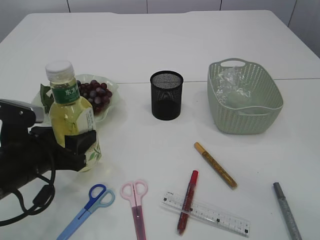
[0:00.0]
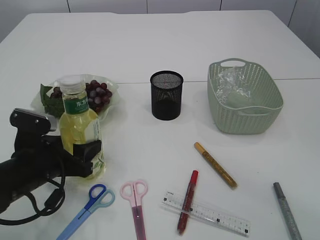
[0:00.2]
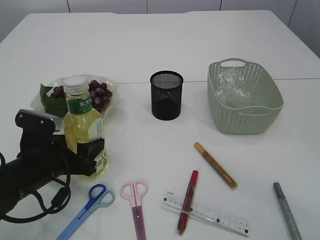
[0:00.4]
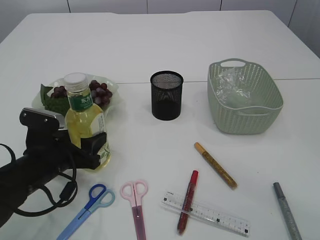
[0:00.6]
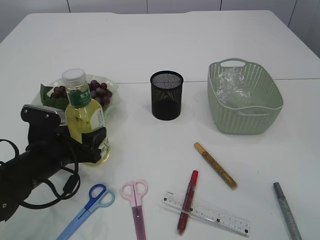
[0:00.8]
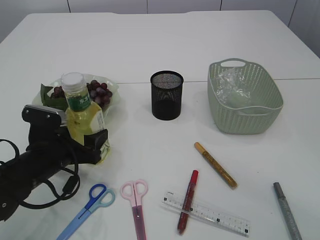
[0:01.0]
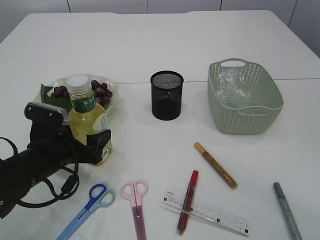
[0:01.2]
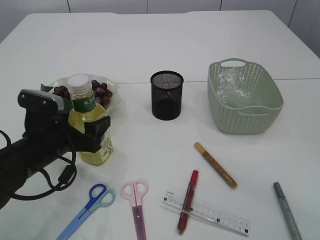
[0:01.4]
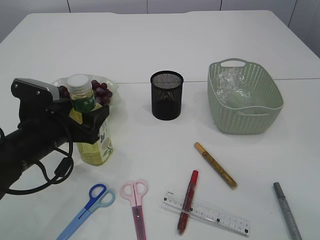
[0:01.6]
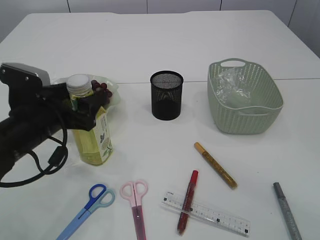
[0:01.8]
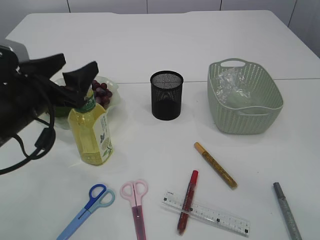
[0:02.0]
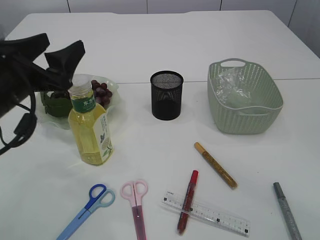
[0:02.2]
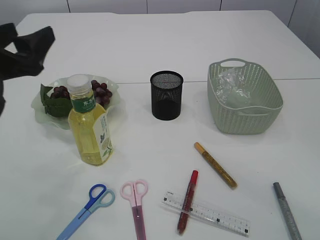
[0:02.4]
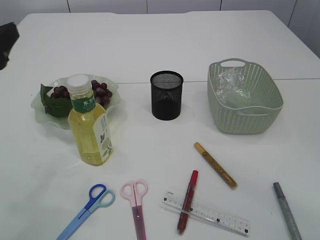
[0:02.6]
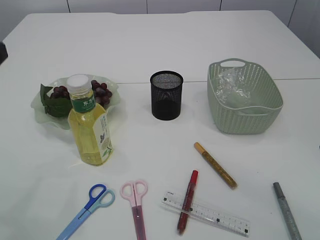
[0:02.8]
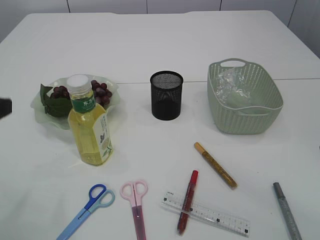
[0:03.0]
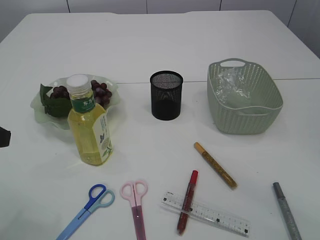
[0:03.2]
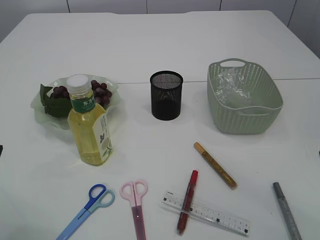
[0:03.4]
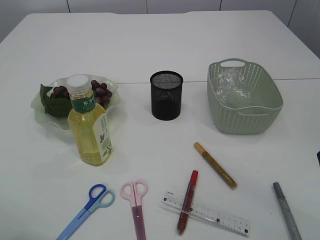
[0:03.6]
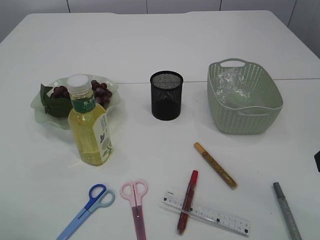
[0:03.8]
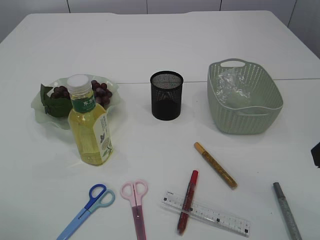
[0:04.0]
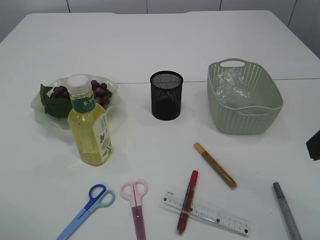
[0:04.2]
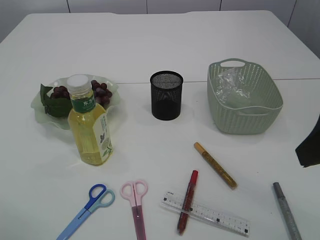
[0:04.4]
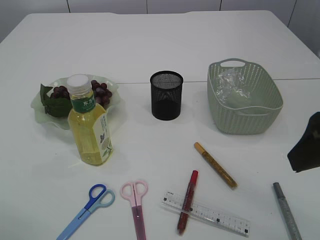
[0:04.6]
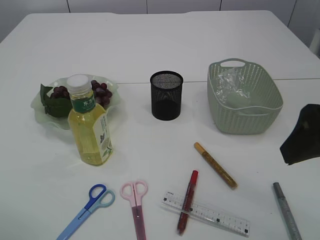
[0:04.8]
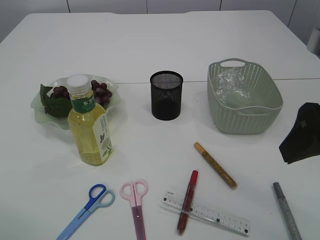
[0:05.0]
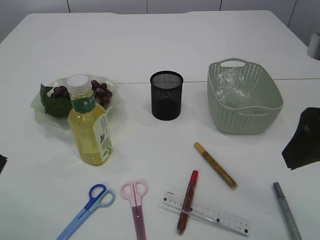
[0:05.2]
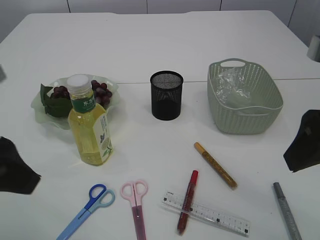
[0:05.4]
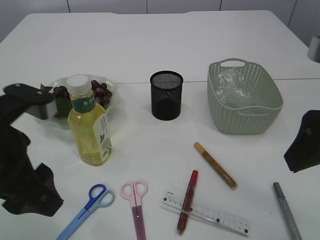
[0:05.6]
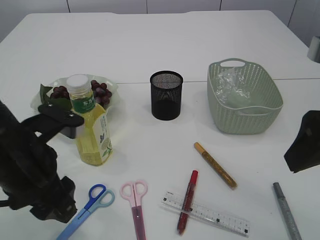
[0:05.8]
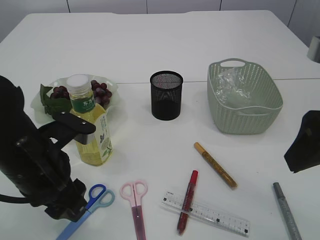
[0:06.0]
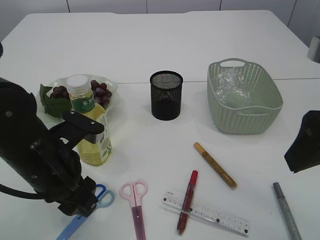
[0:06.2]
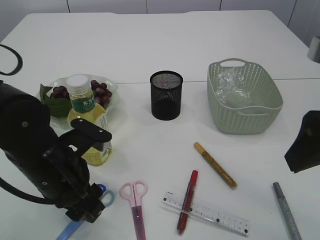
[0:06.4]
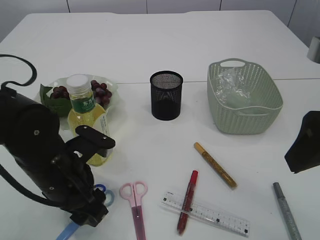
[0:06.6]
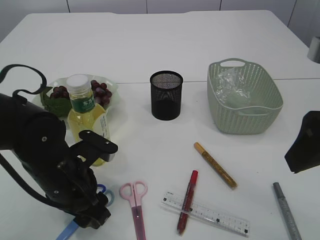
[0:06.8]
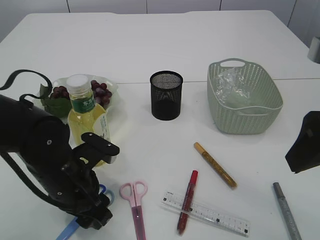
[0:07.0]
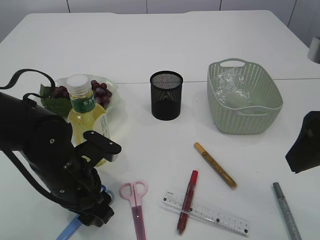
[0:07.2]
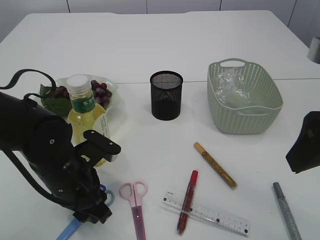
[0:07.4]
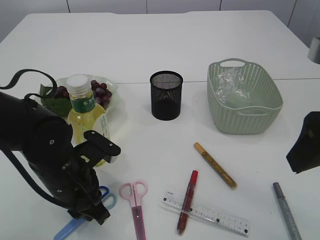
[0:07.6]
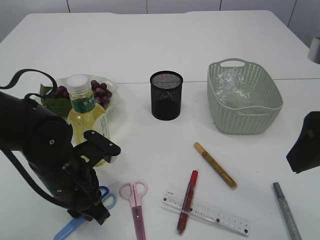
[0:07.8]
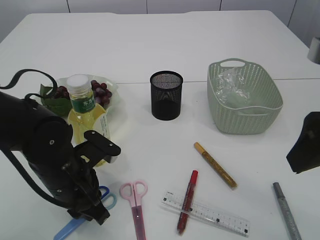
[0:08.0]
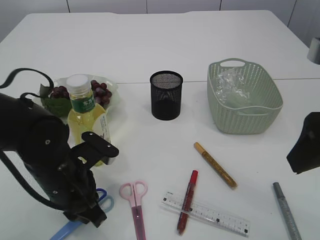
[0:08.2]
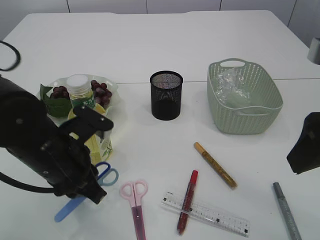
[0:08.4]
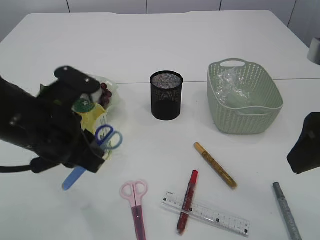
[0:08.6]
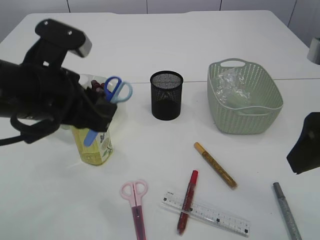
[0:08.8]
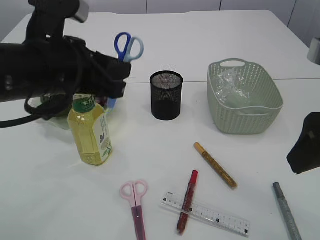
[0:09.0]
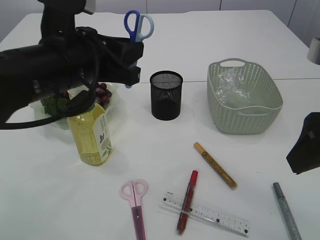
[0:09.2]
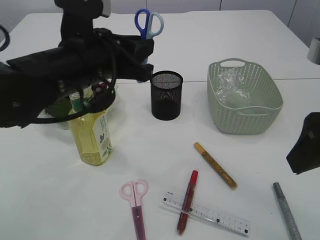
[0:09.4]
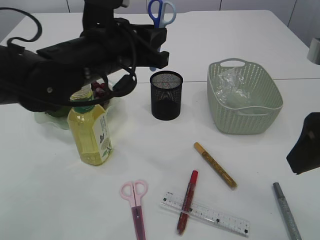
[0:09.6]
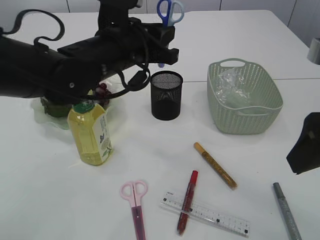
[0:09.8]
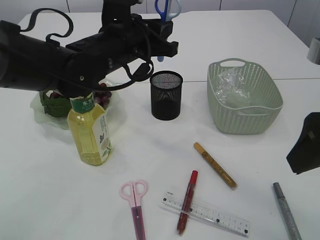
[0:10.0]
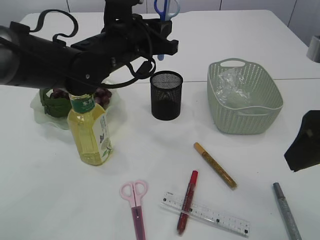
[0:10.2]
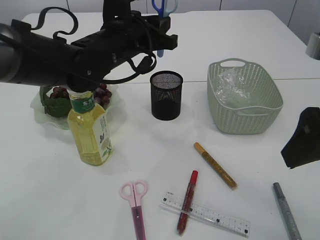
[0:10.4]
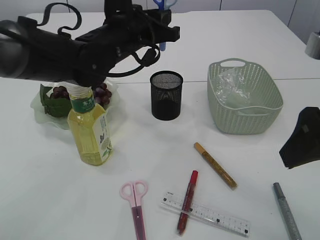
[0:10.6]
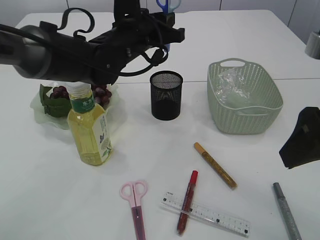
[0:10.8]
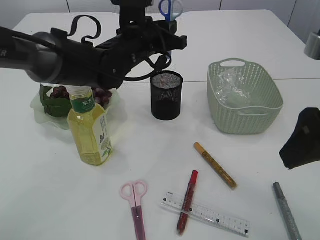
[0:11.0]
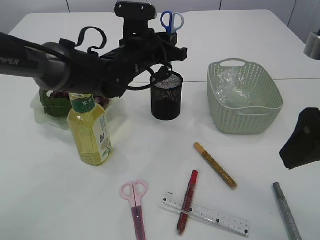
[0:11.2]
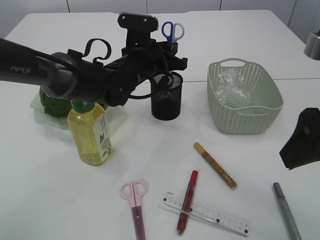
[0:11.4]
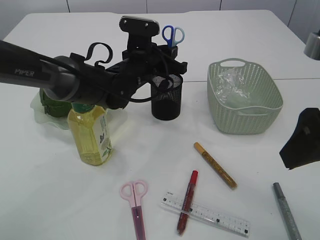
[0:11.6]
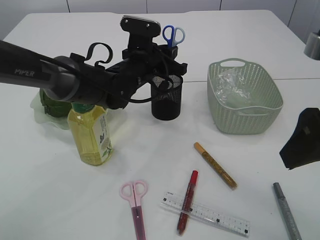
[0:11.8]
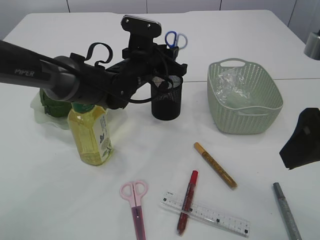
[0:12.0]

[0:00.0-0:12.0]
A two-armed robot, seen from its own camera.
Step, 0:00.0 to 0:02.2: Place the bottle.
Step, 0:02.4 to 0:08.4: pick up the blue scissors.
0:00.0 to 0:01.6: The left gripper opens.
0:01.6 to 0:03.0: The left gripper shifts some 15 cm upward, to the left and backward.
0:04.4 to 0:06.0: The left gripper travels downward and to the right by roughly 15 cm.
0:06.0 to 0:07.6: The left gripper heads downward, covering approximately 5 cm, and closes up.
0:07.6 to 0:09.0: The left gripper shifts approximately 15 cm upward.
0:09.0 to 0:10.4: The left gripper goes some 15 cm forward and to the right.
0:10.4 to 0:12.0: The left gripper heads downward, covering about 5 cm.

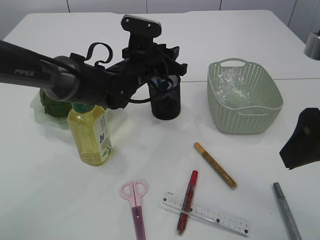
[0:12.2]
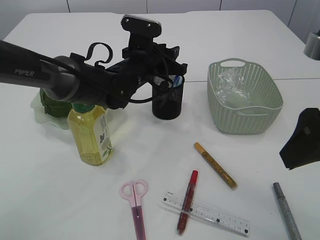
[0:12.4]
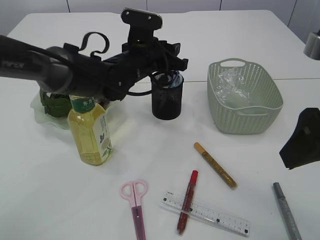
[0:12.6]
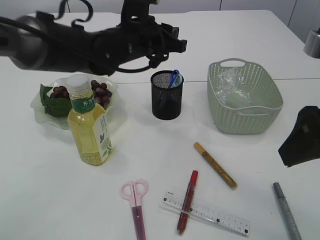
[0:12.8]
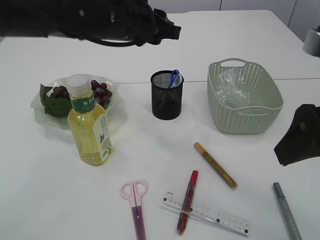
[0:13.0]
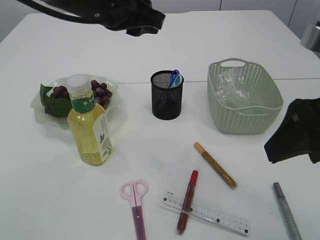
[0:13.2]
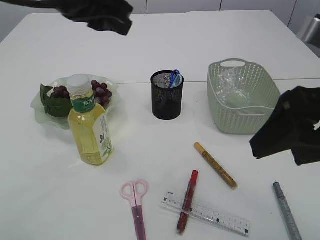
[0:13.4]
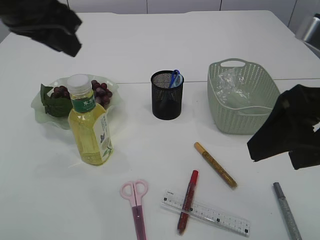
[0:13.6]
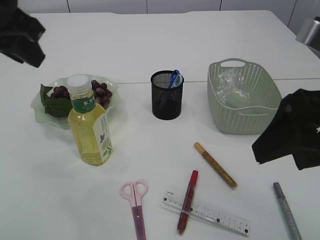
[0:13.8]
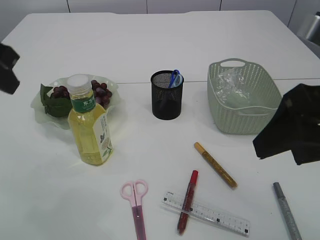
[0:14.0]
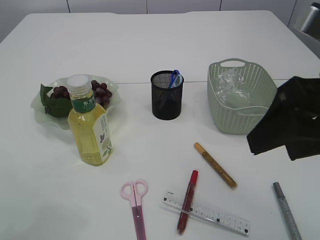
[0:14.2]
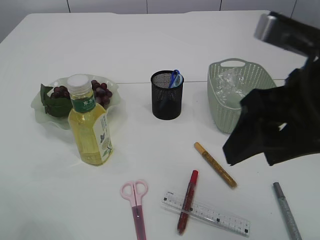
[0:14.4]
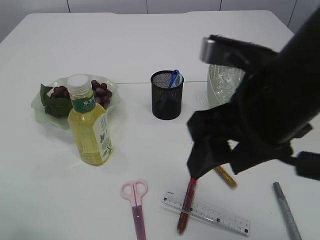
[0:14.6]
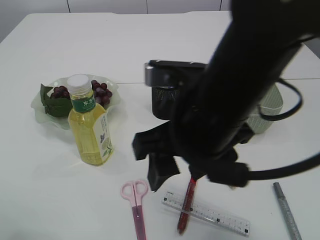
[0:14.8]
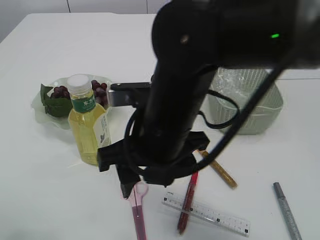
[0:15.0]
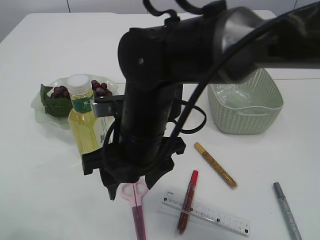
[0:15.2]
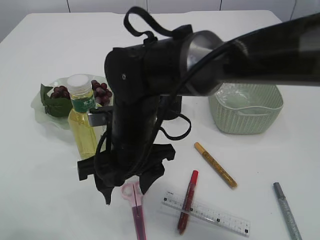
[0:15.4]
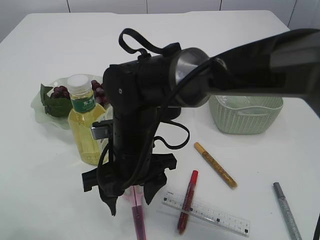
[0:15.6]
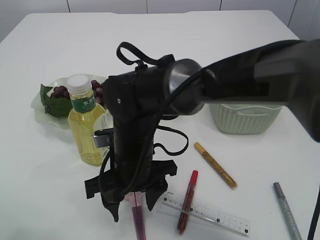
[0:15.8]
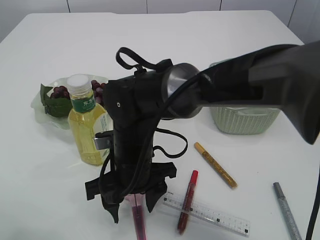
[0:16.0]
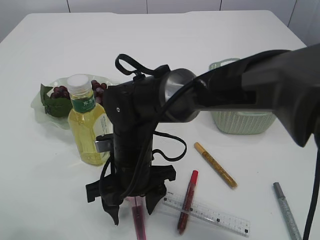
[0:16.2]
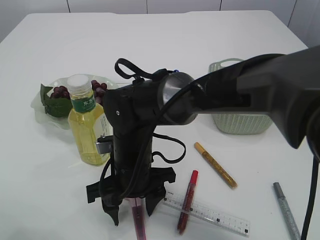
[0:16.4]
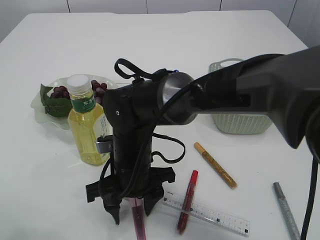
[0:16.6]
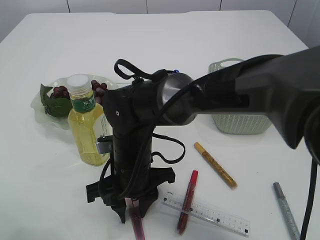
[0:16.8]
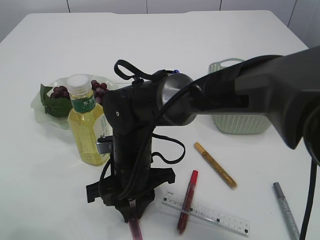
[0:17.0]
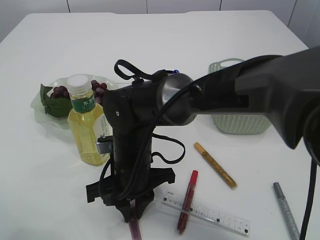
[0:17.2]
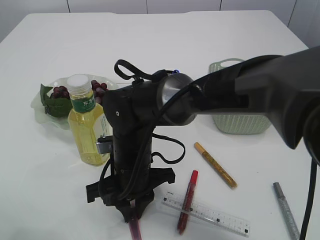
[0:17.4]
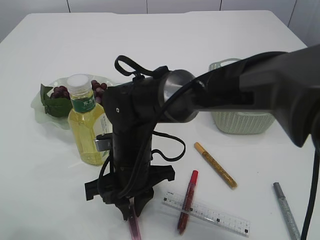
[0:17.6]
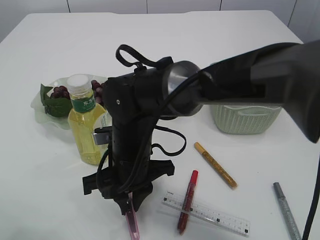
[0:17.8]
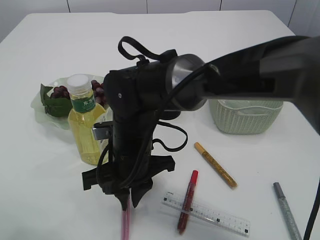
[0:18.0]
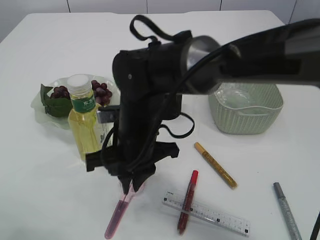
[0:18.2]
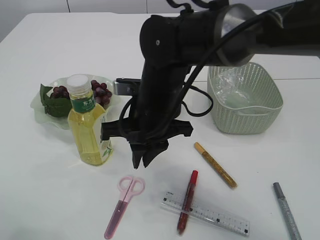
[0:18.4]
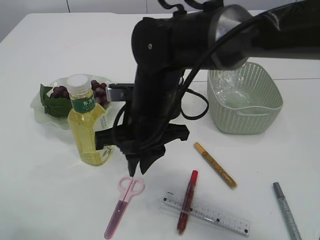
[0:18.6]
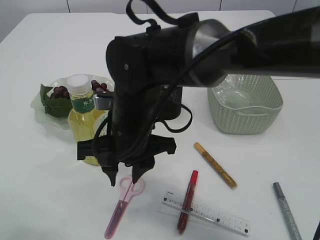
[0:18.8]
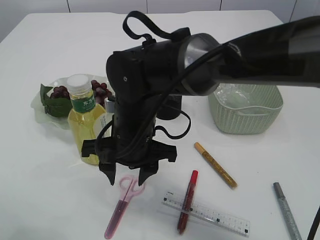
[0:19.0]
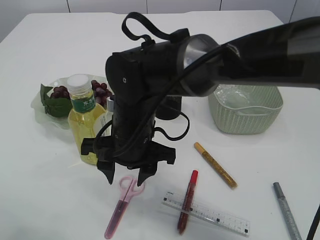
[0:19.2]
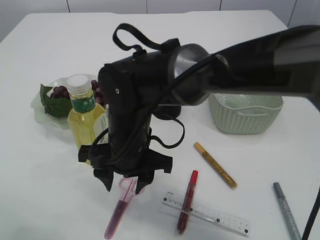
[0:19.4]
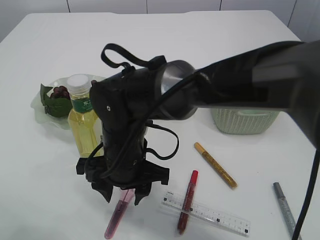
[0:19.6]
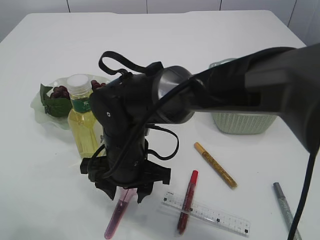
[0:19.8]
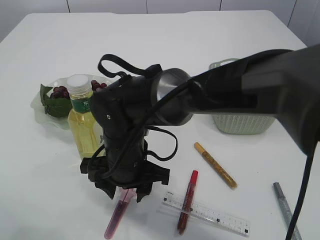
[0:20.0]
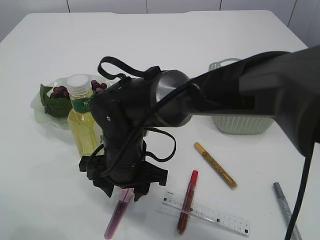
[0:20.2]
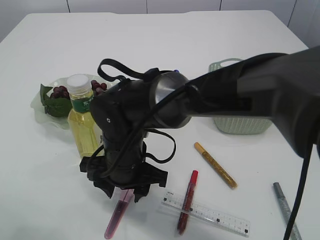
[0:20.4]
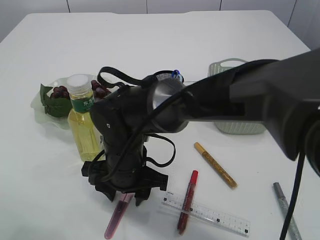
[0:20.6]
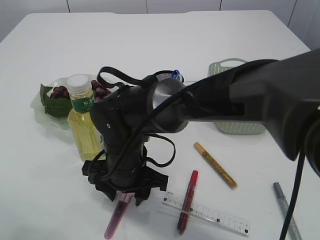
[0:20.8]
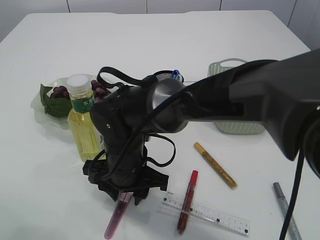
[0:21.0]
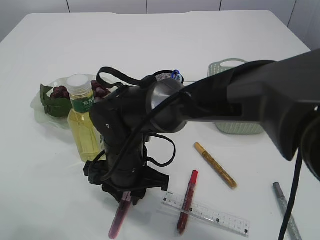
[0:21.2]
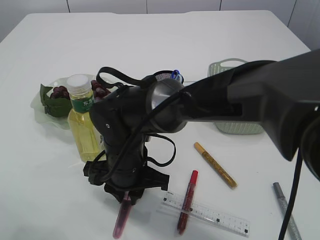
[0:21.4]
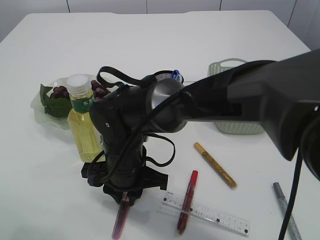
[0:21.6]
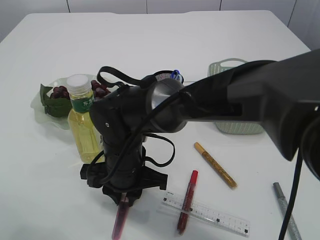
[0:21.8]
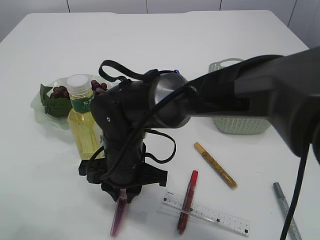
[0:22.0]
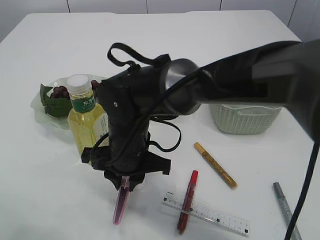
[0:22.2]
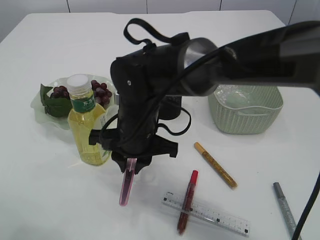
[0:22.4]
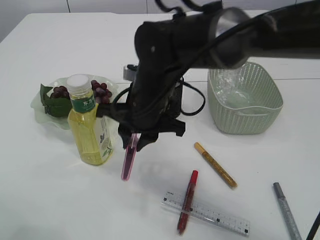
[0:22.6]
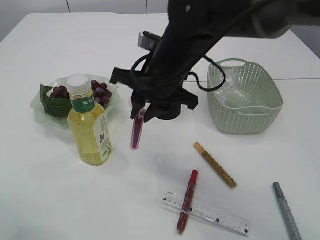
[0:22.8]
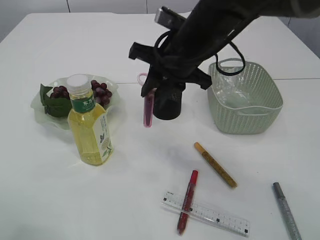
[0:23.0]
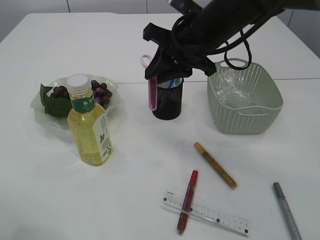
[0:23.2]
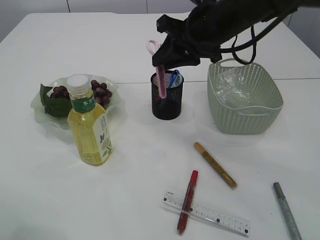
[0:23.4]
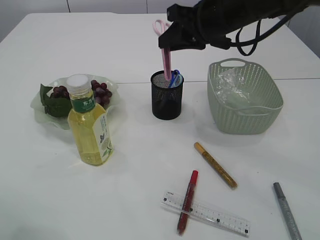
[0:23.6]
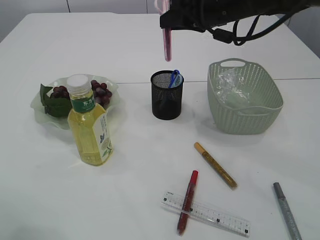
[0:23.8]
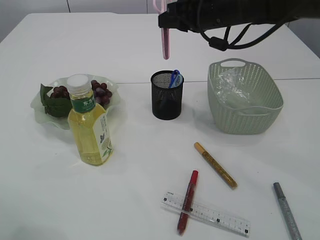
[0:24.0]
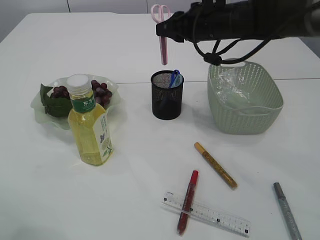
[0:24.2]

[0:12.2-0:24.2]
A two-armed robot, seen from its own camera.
Step, 0:13.0 to 0:22.4: pick up the pink scissors.
0:12.2 to 0:13.8: The left gripper is displaced upward, to the left and backward by roughly 30 cm.
0:13.8 to 0:15.2: The left gripper is displaced backward, to the left and downward by approximately 15 cm, while the right gripper moves to the left and downward, some 25 cm.
0:15.2 to 0:16.6: The right gripper travels downward by approximately 10 cm.
0:16.6 to 0:18.2: The right gripper ends up some 5 cm from where it was, and closes.
0:18.2 to 0:19.8: The right gripper opens.
0:19.8 to 0:21.2: There are only small adjustments of the grippers.
0:21.2 to 0:22.6: The right gripper shifts some 10 cm upward.
0:22.6 to 0:24.2: The right gripper is displaced to the right, forward and upward by approximately 20 cm.
